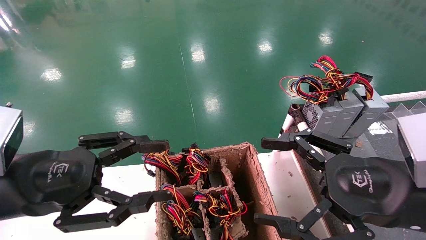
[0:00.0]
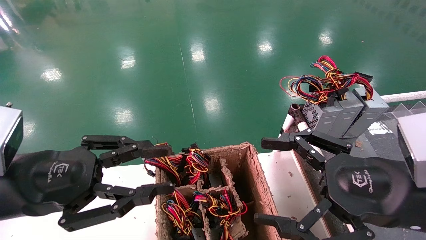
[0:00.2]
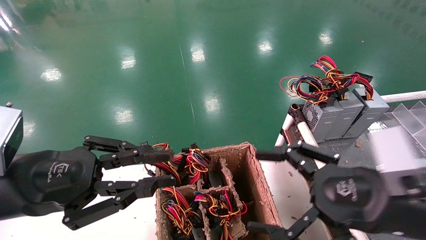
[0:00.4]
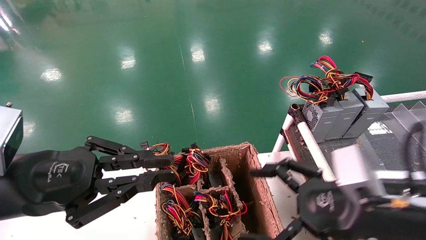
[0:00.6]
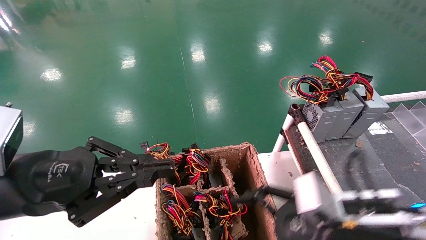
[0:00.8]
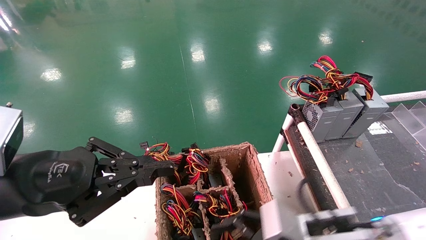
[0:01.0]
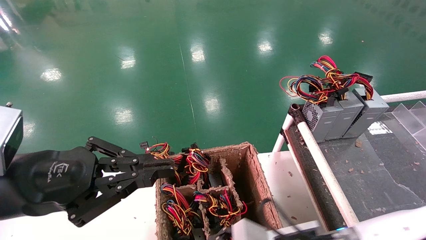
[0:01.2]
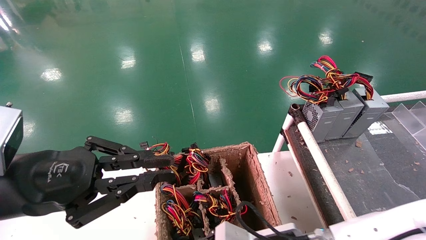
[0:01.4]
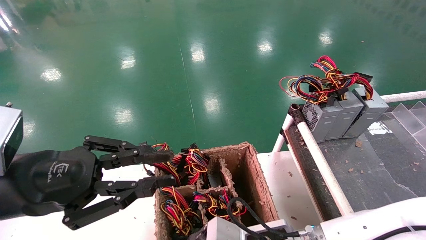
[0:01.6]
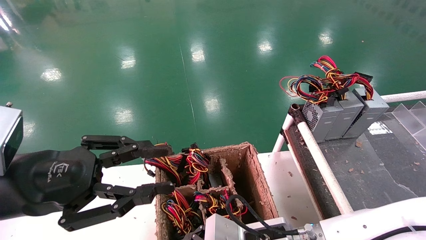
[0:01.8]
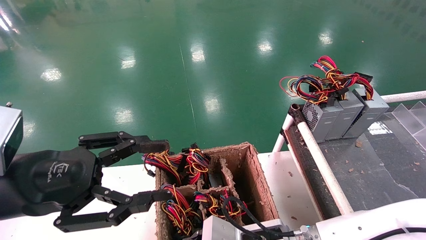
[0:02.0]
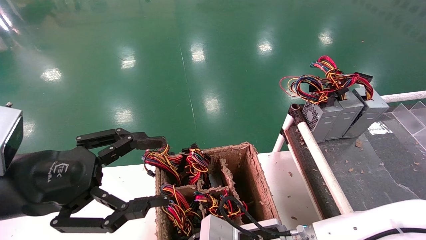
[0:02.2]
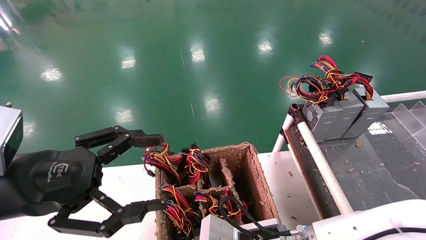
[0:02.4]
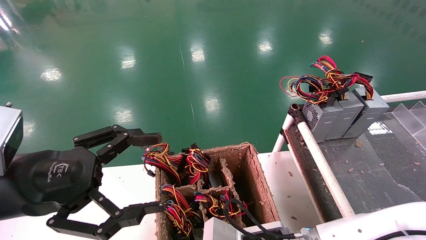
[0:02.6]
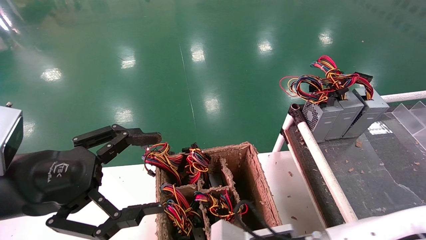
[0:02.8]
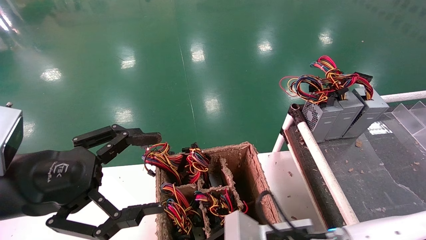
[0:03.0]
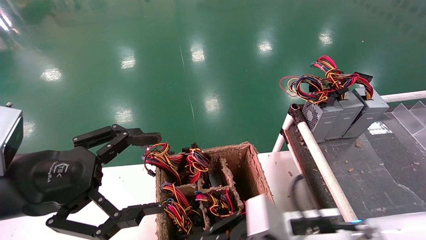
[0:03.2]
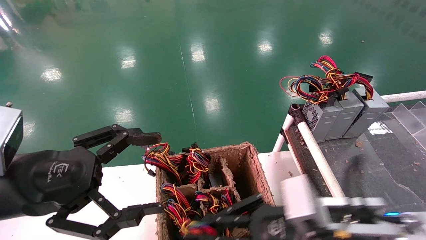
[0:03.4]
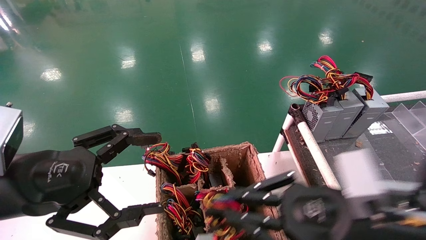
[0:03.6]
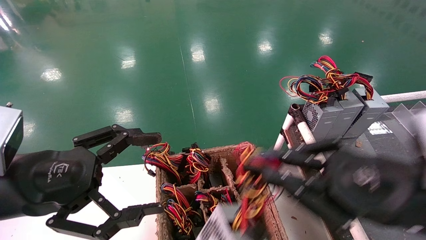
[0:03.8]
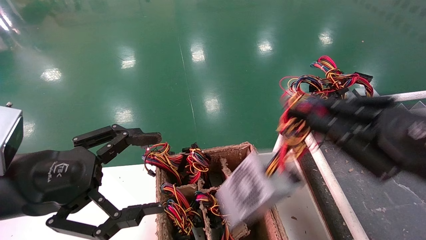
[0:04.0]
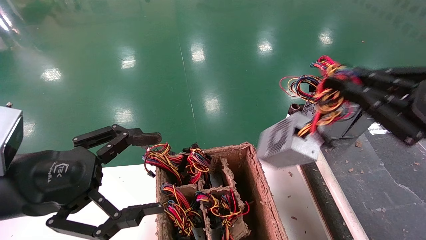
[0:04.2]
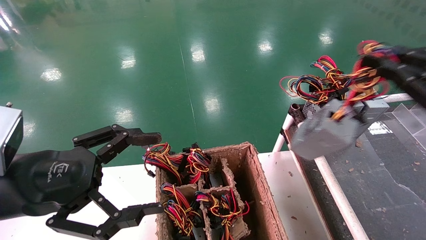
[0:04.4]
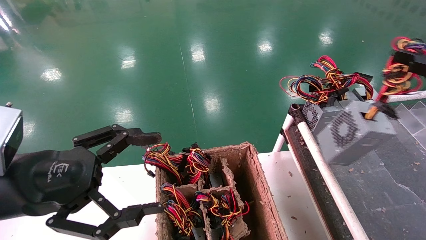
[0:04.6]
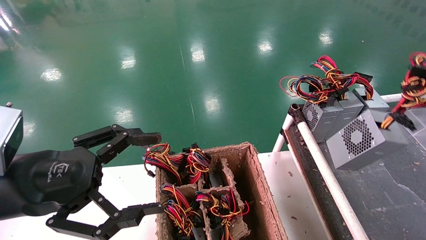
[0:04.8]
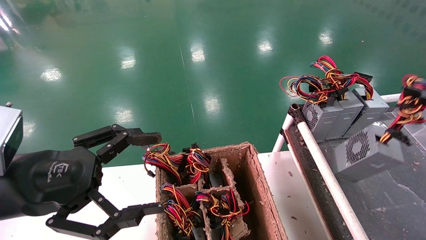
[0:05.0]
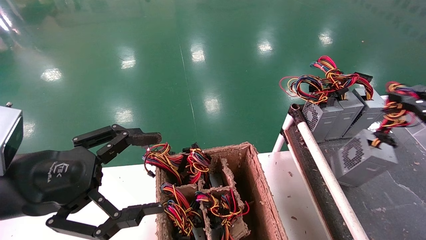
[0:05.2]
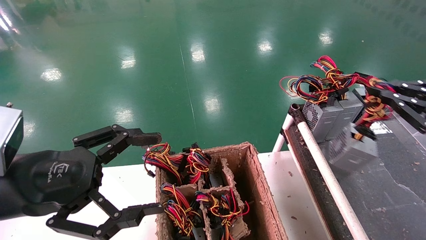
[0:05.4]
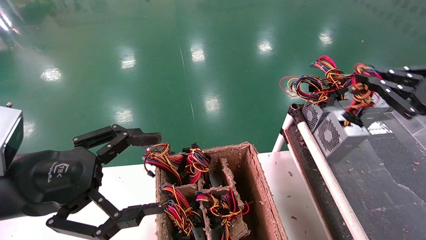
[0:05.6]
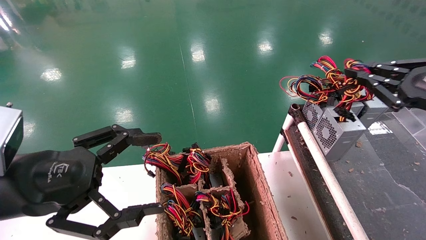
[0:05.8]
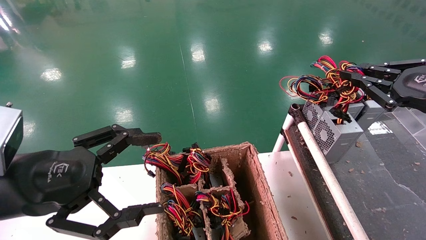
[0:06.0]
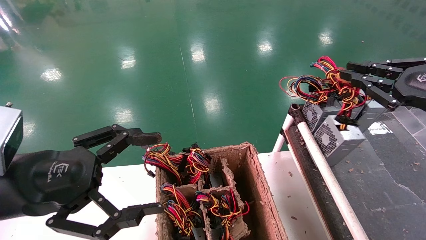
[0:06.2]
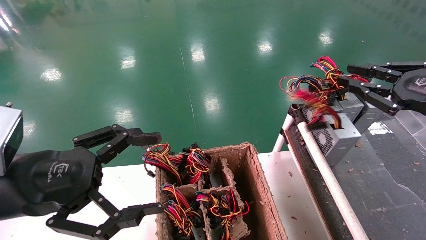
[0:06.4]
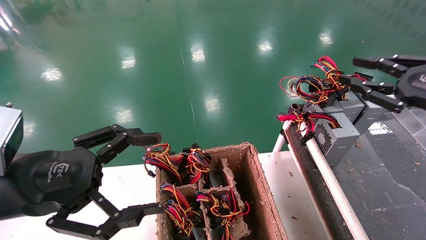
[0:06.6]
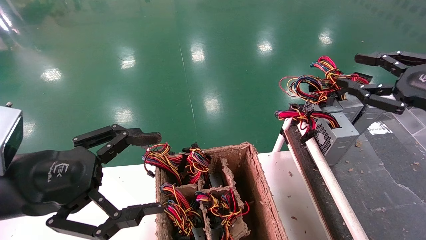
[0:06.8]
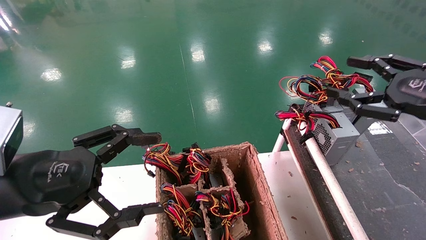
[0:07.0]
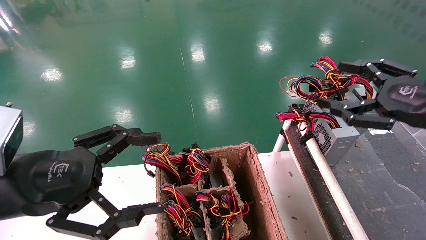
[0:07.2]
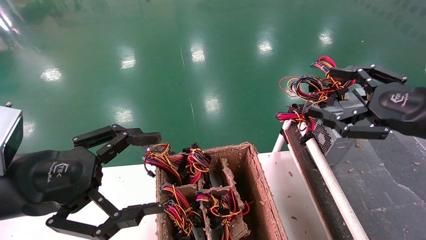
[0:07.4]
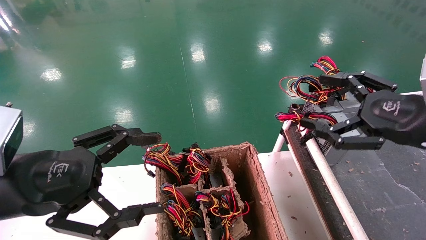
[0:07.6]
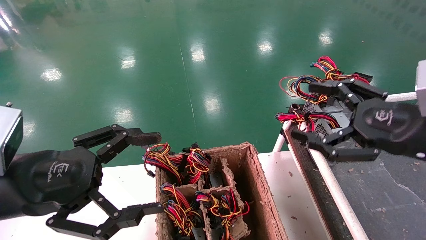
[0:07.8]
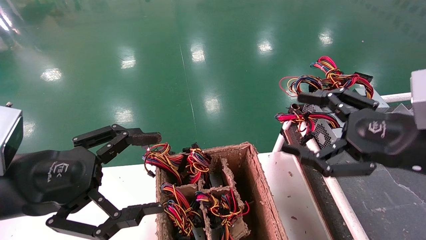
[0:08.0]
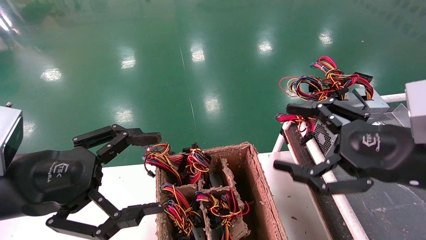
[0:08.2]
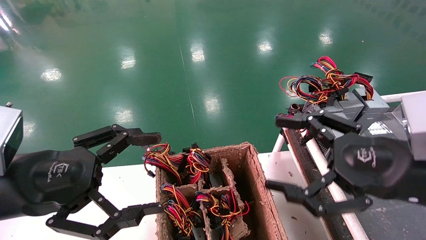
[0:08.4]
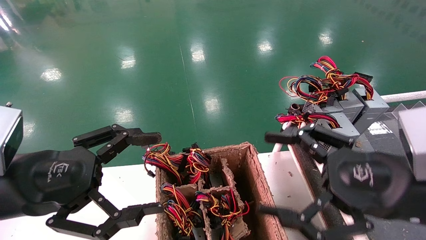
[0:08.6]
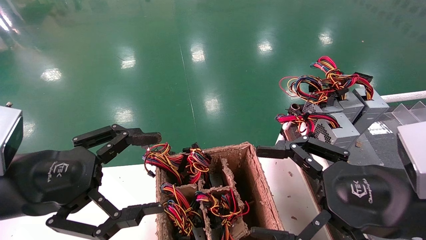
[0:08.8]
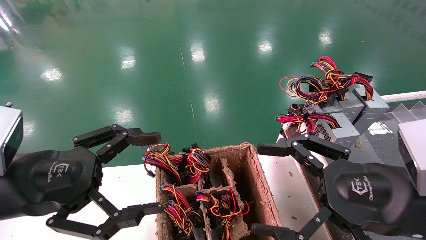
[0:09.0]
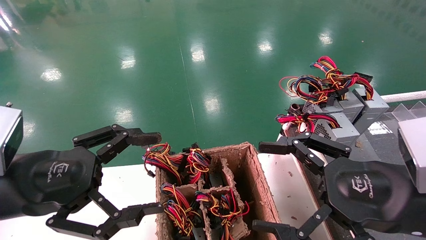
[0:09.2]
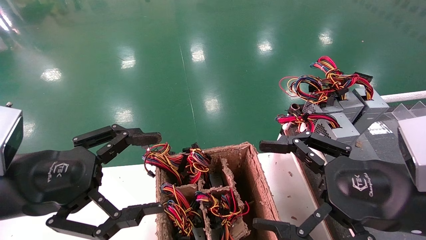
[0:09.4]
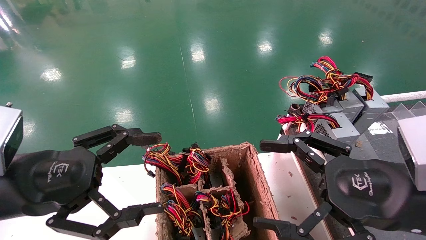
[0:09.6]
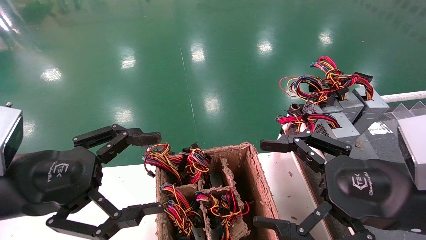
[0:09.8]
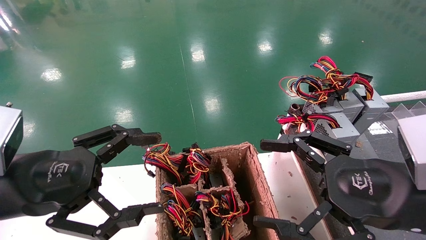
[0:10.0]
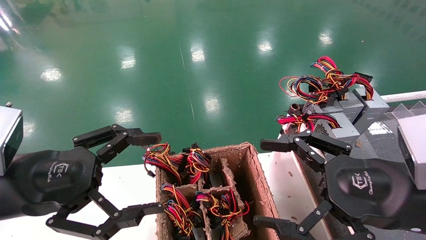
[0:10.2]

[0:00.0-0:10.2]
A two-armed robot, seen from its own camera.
Step, 0:00.6 to 0:02.6: Grab and lift the power supply from the large box.
Step, 0:02.8 to 0:06.4: Place the power supply on the operating table.
0:00.0 to 0:01.4: The right gripper is displaced downward, to the left and forward by some 20 cm. The left gripper closes.
0:01.4 to 0:03.0: The left gripper opens up. The right gripper closes its fingers.
0:03.0 to 0:04.4: The right gripper shifts about 30 cm to the right and upward.
0:04.4 to 0:05.8: The right gripper moves forward, approximately 10 cm.
0:05.8 to 0:07.2: The right gripper opens up.
0:07.2 to 0:08.8: The right gripper is displaced to the left, backward and downward by approximately 15 cm.
0:08.8 to 0:10.2: Both grippers stay put.
